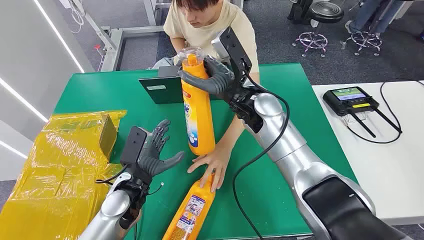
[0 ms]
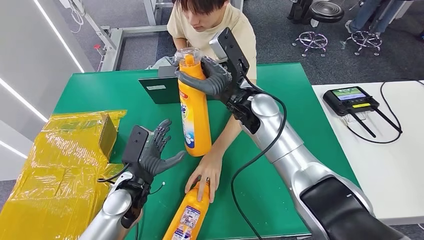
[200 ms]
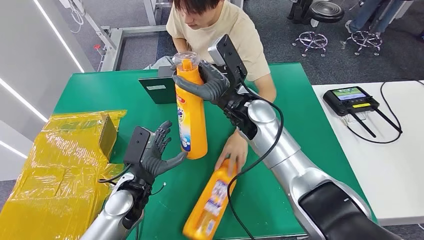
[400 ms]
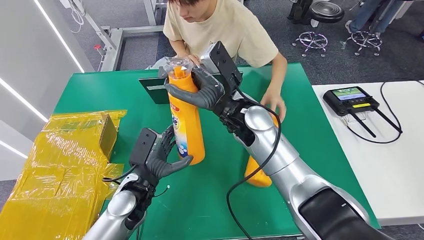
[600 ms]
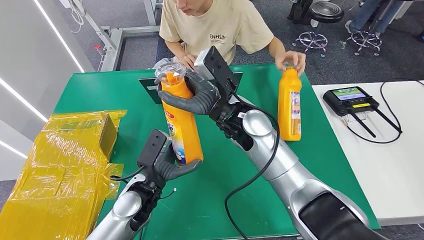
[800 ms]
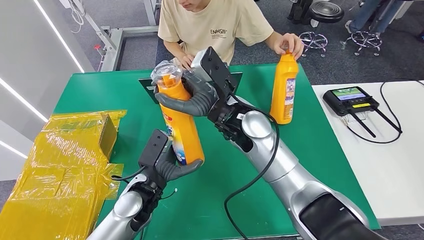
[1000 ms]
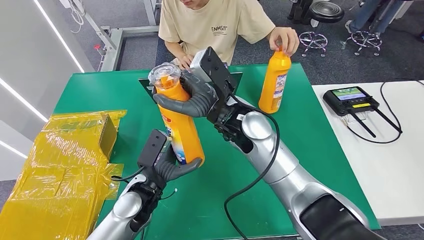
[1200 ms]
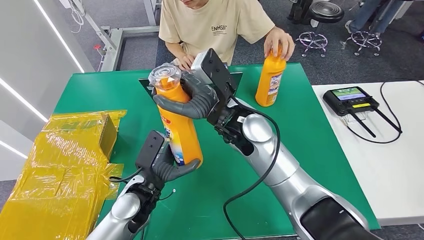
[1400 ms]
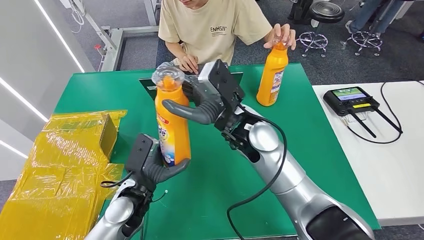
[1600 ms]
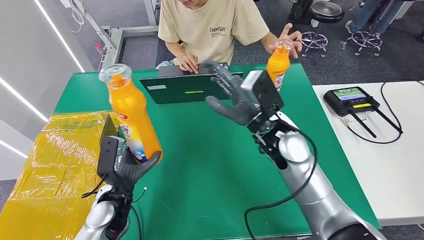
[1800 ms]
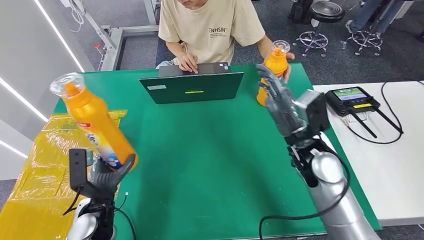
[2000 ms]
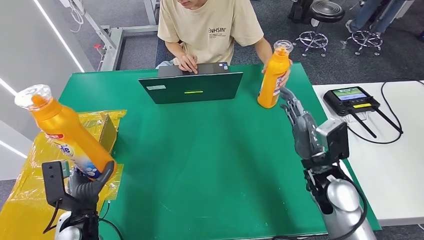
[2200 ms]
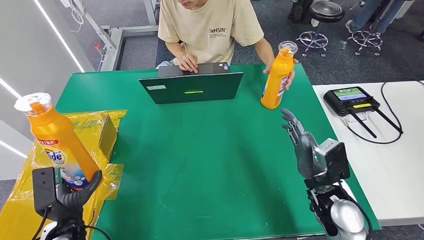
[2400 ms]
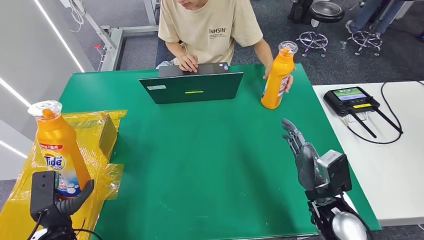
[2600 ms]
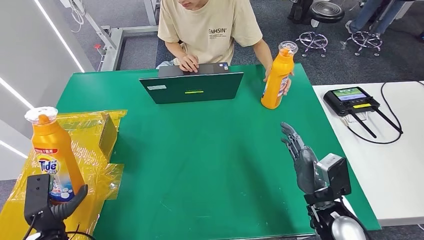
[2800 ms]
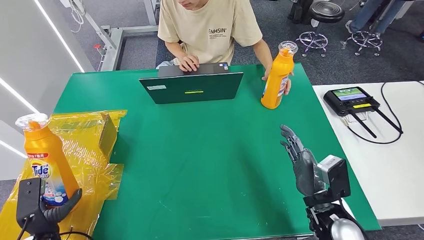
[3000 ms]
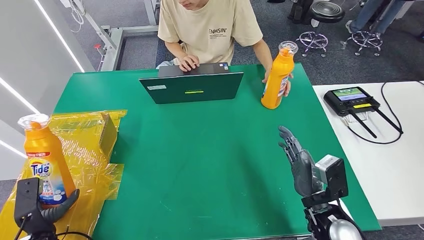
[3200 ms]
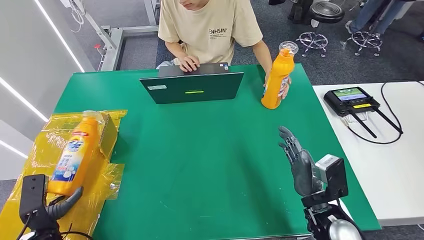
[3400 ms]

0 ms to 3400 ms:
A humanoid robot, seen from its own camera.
Step, 0 ms to 1800 ms: Pick up the bottle from the table.
Step, 2000 ms to 3200 ms: Turn the bottle to the front side.

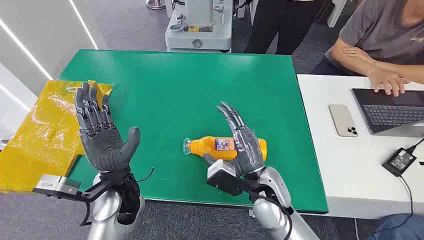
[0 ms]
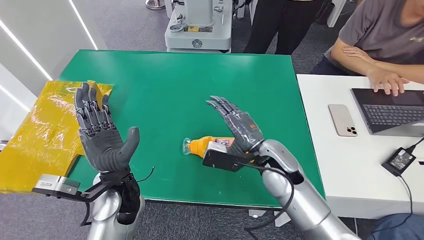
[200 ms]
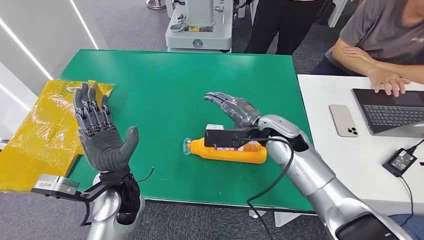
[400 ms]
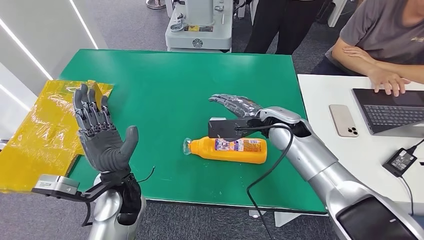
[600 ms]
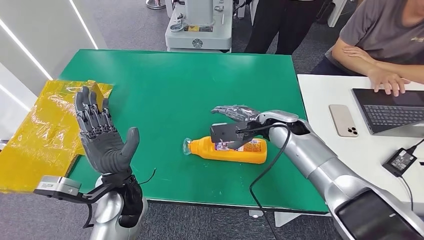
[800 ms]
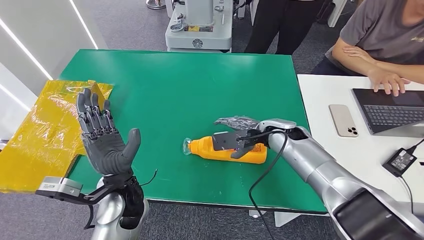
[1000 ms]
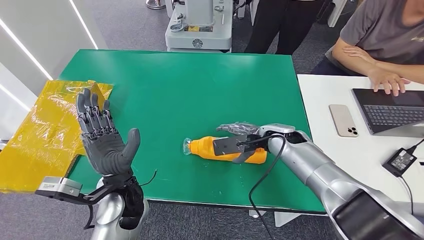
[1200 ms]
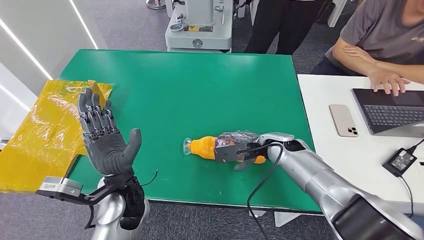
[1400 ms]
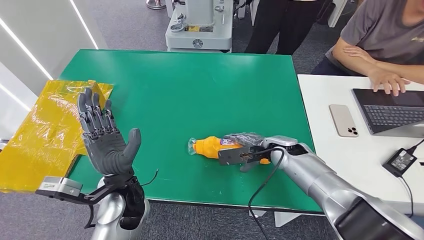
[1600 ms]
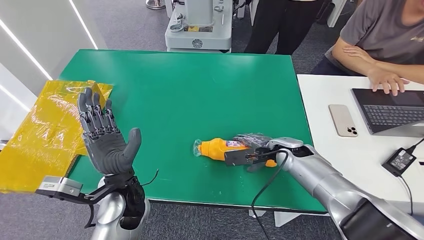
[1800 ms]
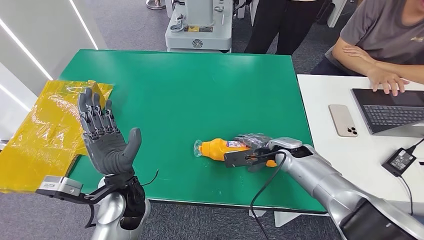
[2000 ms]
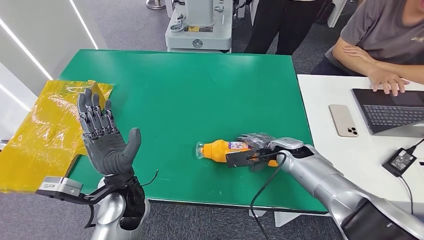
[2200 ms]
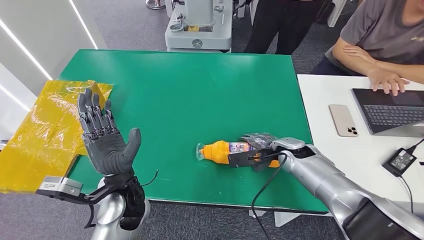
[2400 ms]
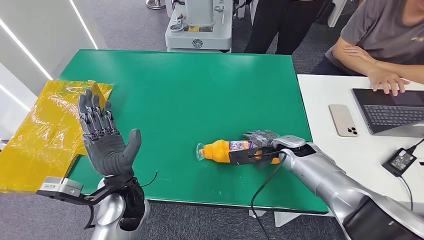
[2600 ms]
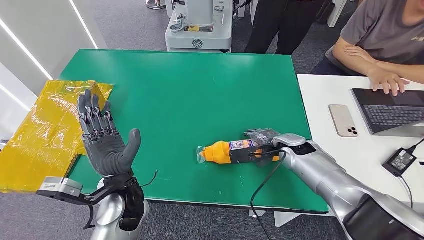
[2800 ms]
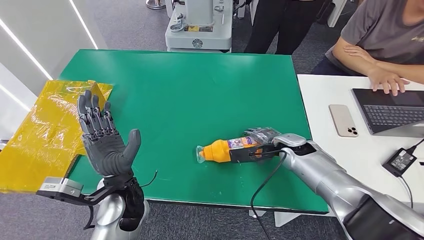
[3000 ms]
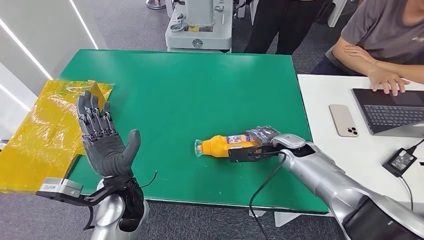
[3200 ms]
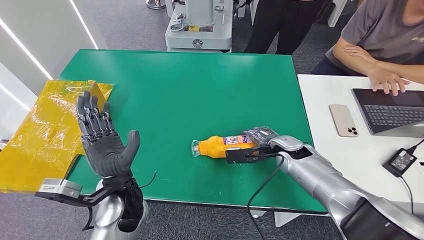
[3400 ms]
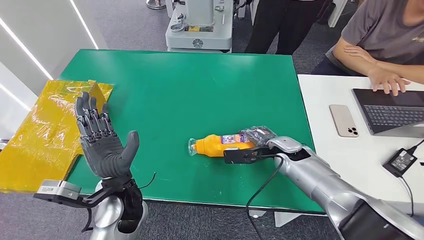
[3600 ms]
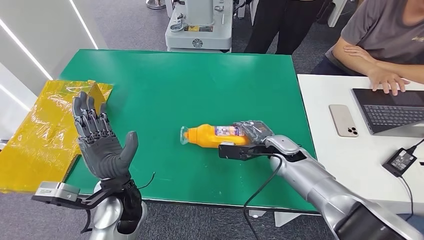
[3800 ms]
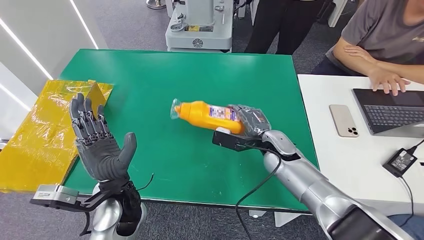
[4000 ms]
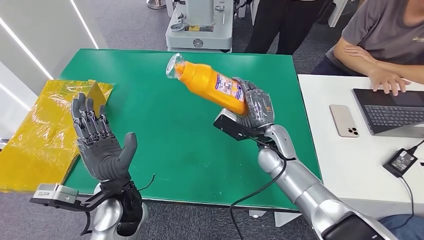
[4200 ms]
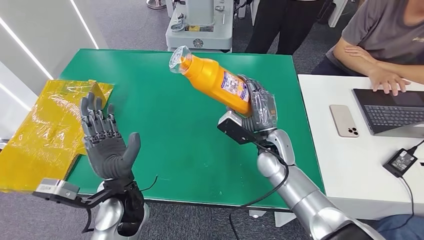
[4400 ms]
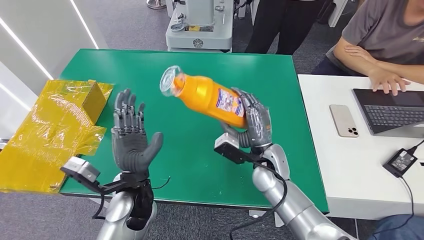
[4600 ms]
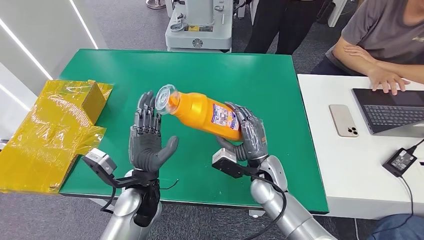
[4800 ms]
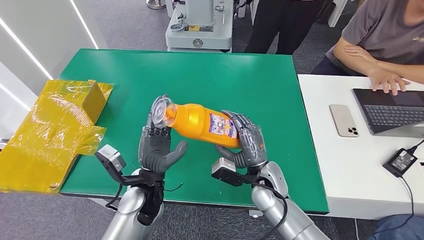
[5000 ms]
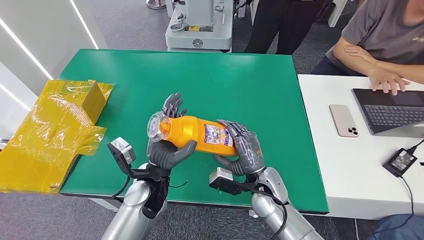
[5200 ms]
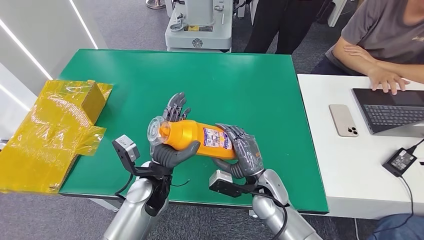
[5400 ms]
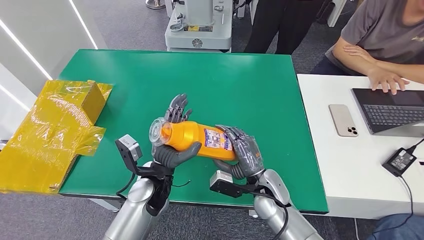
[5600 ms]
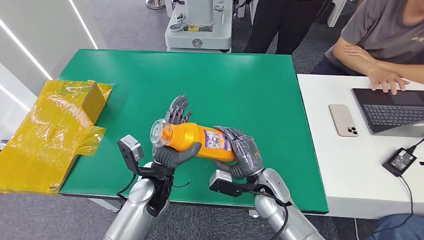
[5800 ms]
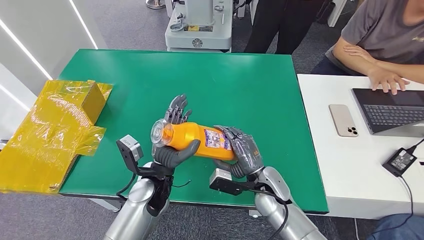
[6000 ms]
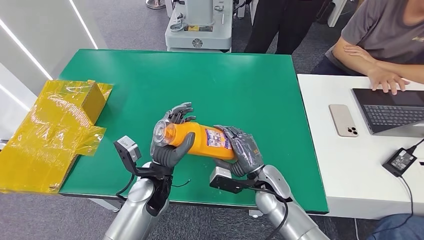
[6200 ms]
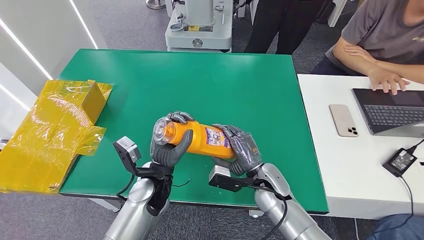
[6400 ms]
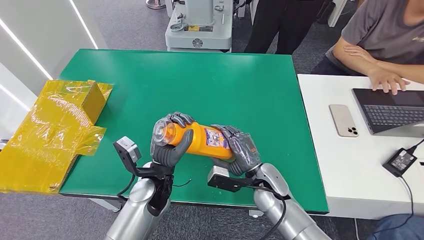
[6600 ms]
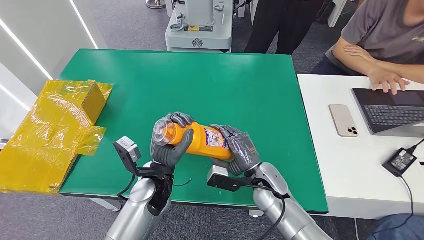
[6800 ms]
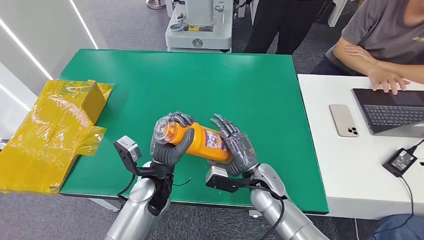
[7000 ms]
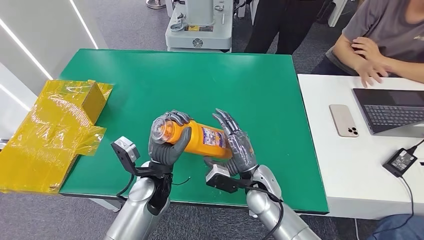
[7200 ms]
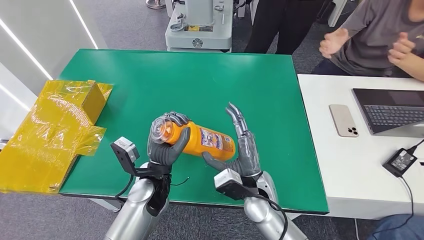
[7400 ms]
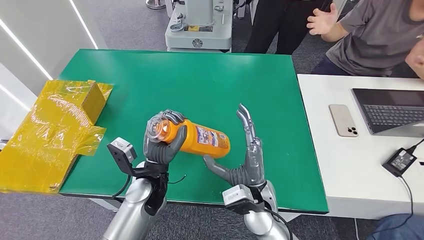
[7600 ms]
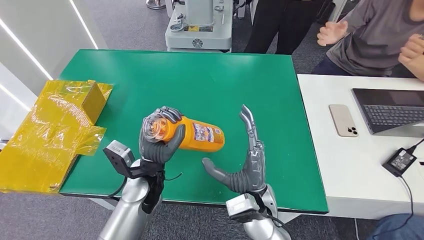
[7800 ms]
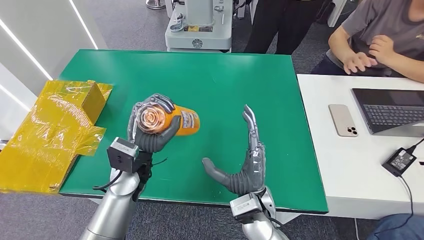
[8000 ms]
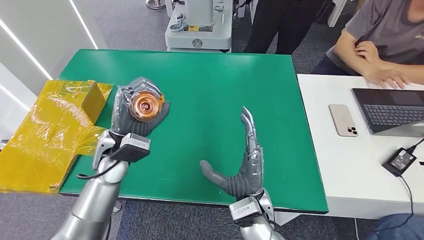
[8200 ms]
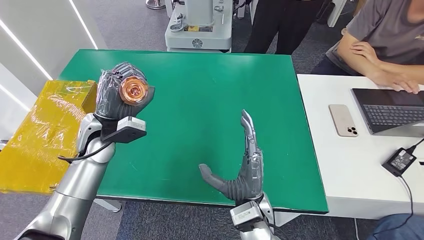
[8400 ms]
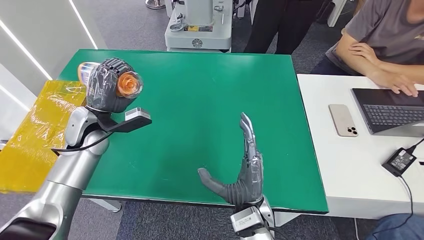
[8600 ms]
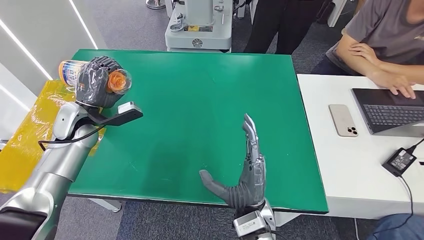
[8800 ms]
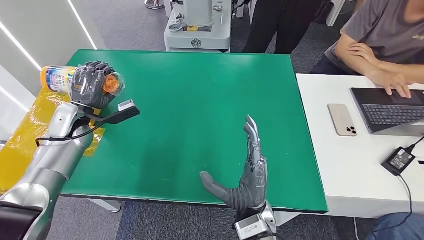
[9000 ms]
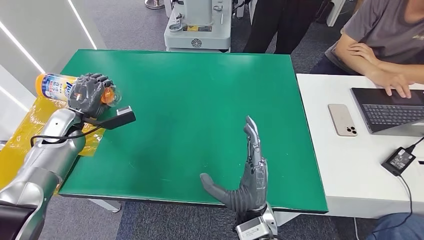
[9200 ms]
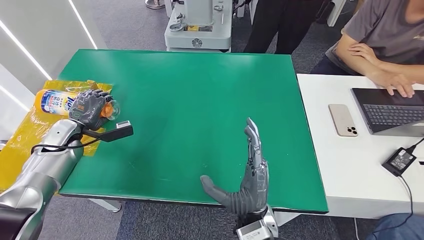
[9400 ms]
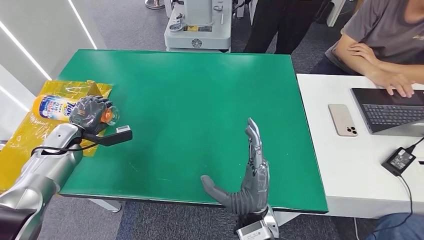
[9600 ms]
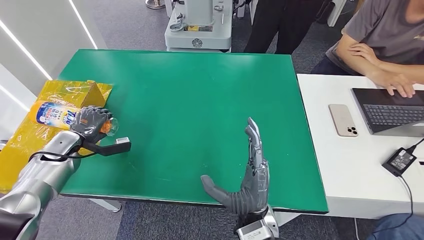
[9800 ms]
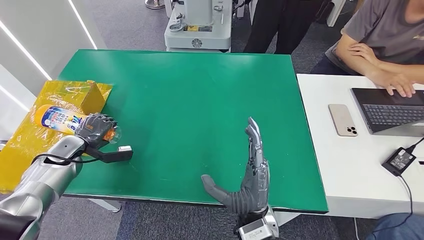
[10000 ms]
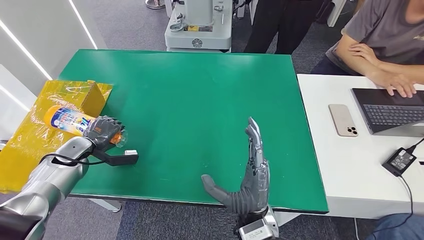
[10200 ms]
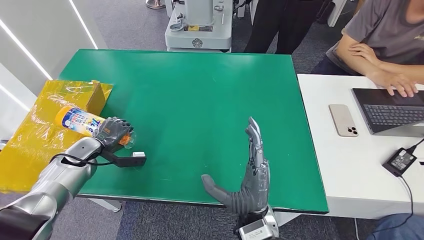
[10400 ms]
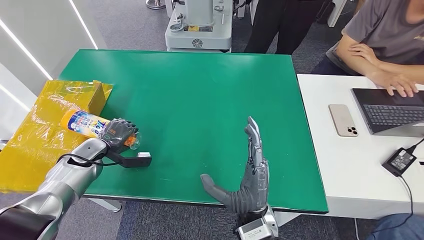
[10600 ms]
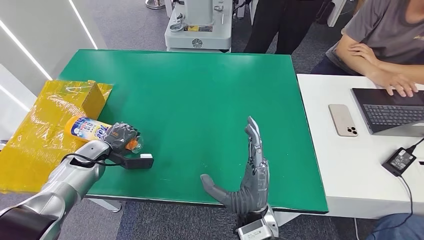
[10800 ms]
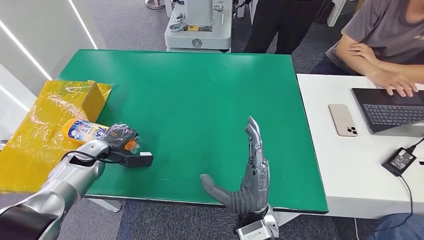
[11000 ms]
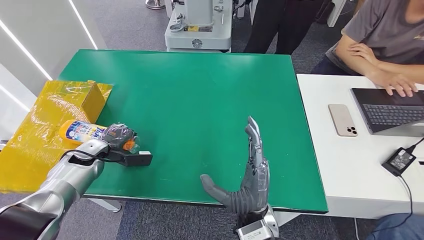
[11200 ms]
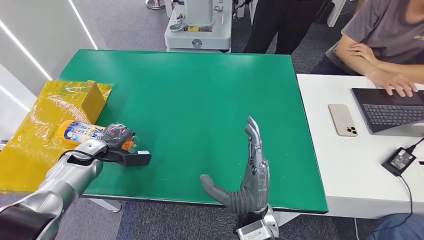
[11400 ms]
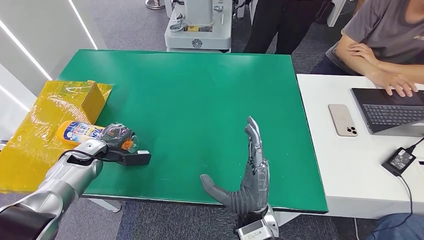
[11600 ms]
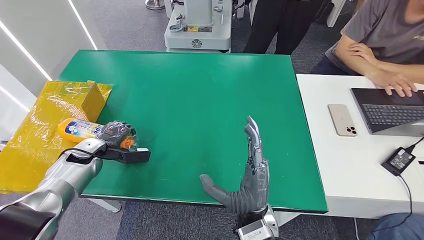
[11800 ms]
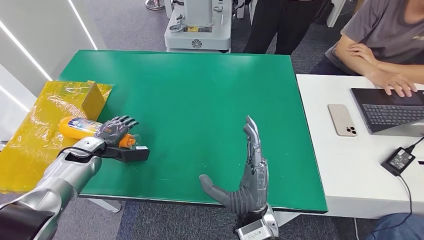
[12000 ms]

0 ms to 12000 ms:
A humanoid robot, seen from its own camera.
Step, 0 ms to 4000 ms: Pick up the bottle from the table.
1600 ms to 3000 ms: There are only small adjustments of the hands.
3000 ms to 4400 ms: The right hand is displaced to the left by roughly 10 cm.
6000 ms to 7600 ms: The right hand heads to the left, covering approximately 5 cm.
9000 ms to 10400 ms: The left hand heads downward, covering about 10 cm.
10400 ms to 12000 ms: The hands stay close to where they were, moving slightly.

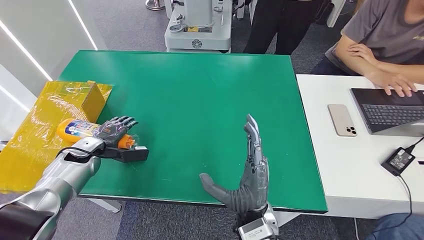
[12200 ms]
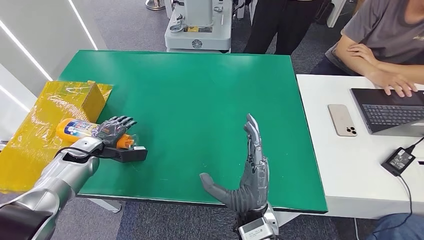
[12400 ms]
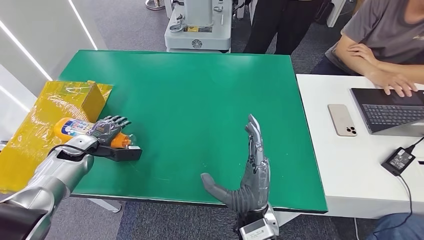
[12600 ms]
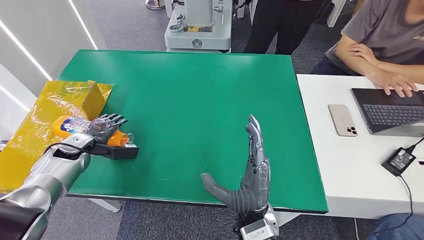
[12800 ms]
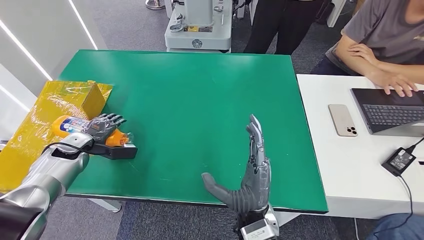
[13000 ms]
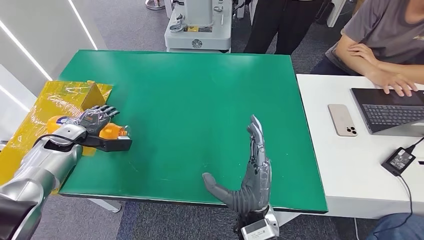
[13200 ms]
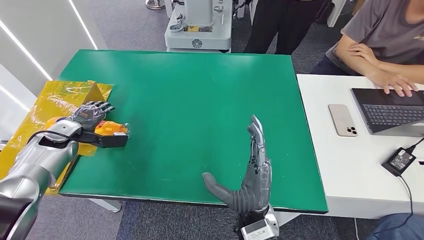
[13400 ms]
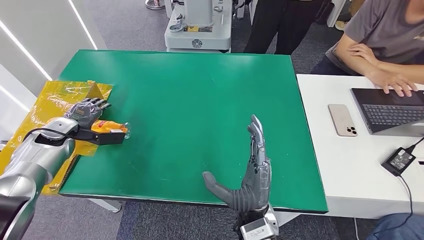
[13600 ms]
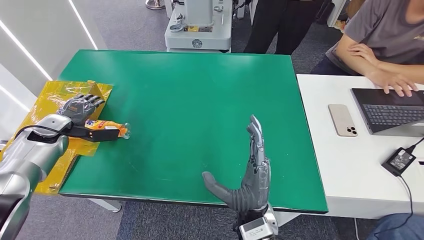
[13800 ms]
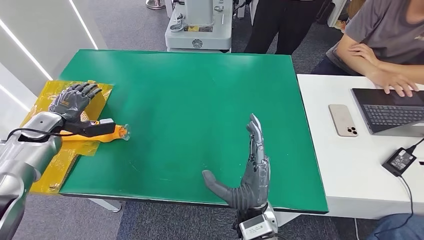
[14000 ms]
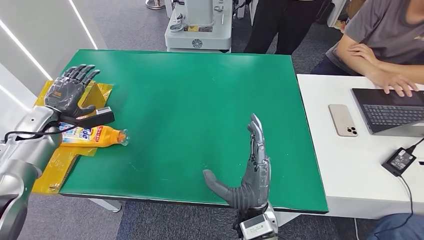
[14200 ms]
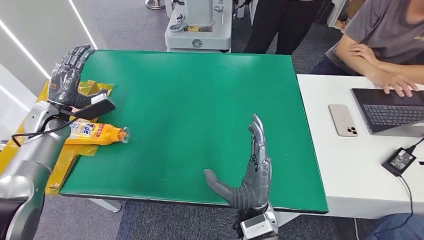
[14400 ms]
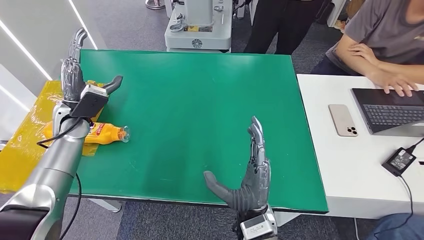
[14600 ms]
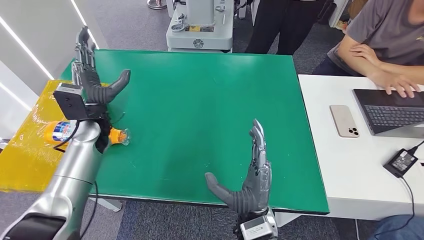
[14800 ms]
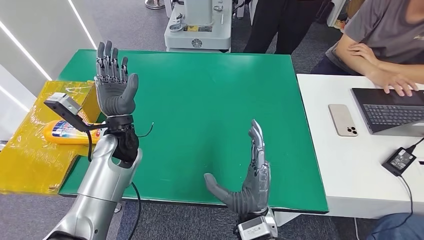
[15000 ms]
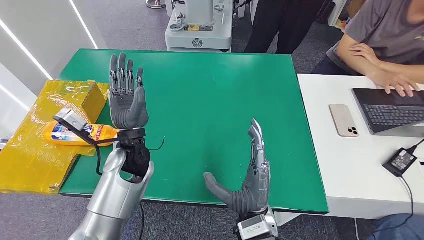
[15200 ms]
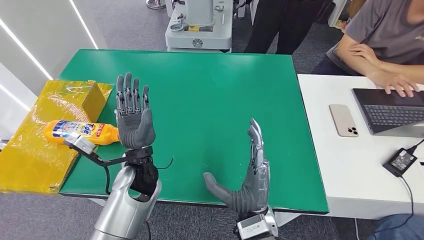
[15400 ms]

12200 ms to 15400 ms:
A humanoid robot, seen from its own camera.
Step, 12200 ms to 15400 ms: Turn the bottle to the front side.
12200 ms to 13800 ms: The left hand is displaced upward and to the left by about 10 cm.
13800 ms to 15400 ms: The left hand shifts roughly 30 cm to the right.
